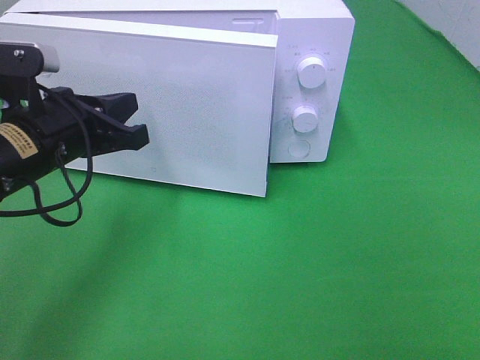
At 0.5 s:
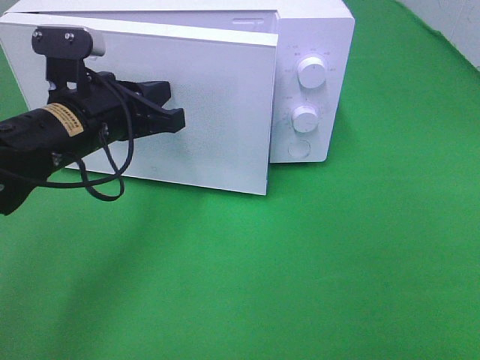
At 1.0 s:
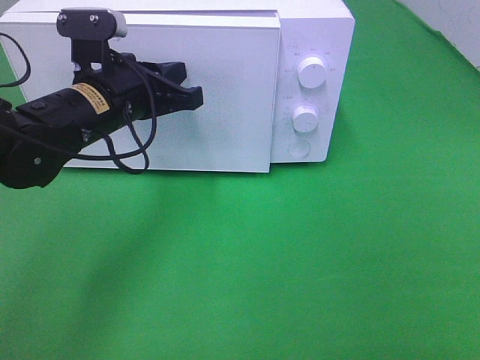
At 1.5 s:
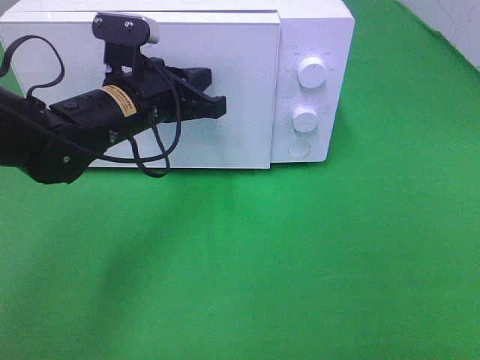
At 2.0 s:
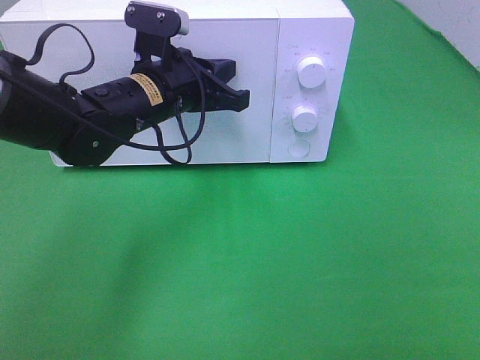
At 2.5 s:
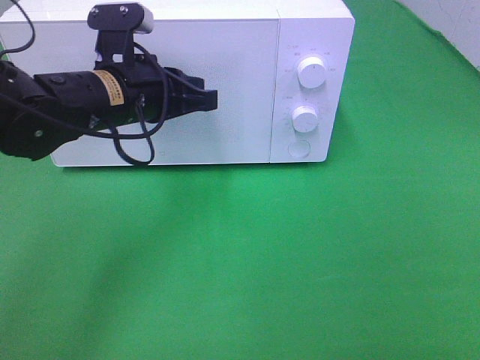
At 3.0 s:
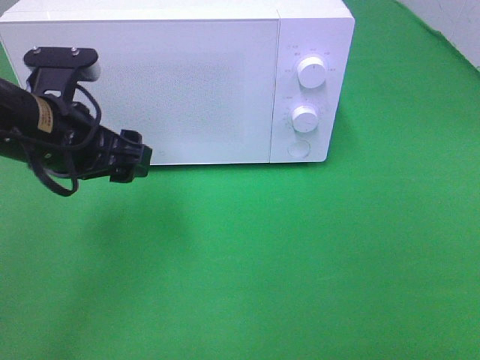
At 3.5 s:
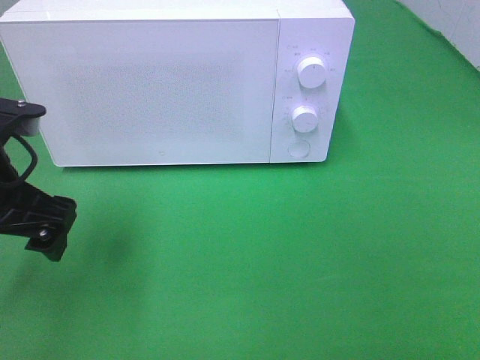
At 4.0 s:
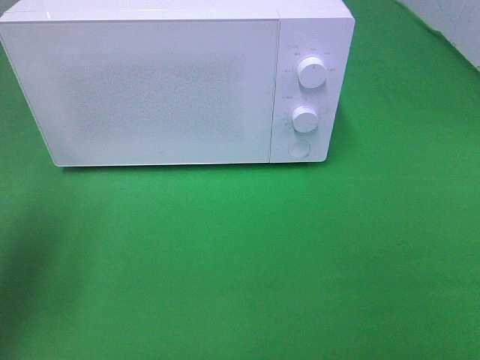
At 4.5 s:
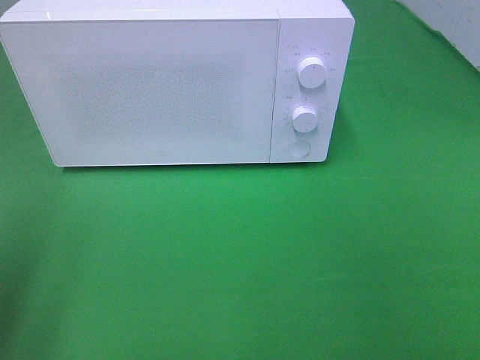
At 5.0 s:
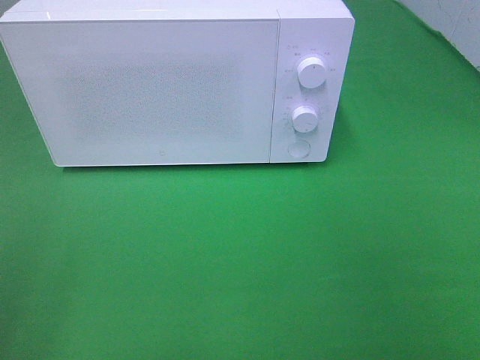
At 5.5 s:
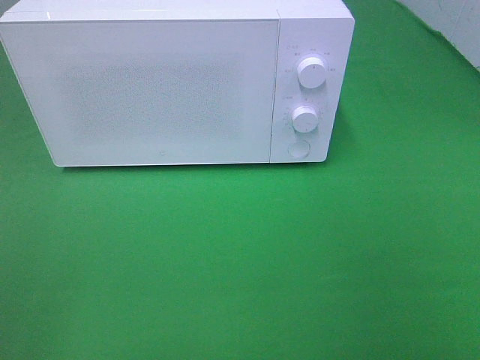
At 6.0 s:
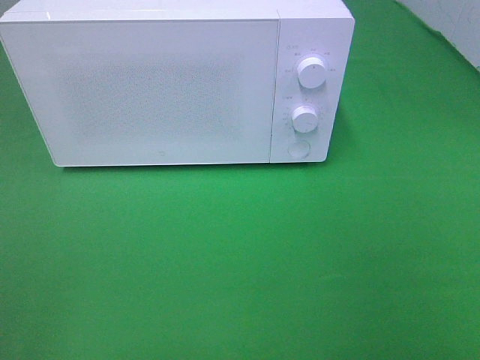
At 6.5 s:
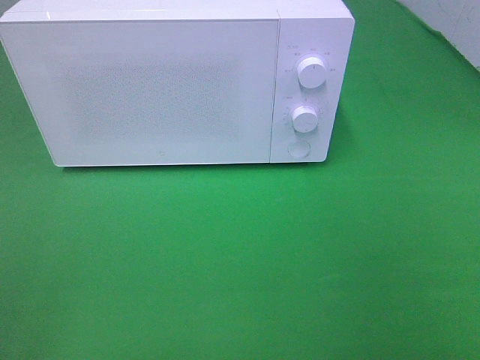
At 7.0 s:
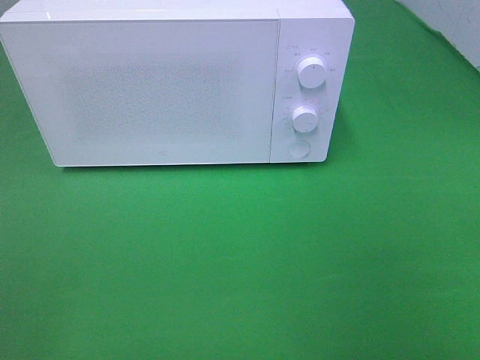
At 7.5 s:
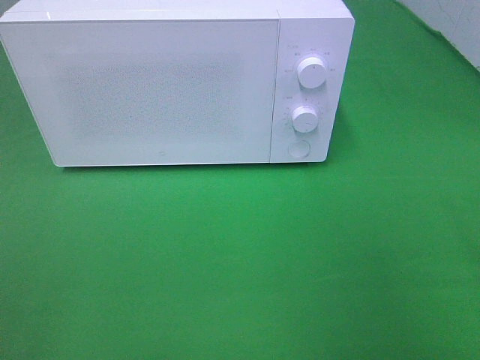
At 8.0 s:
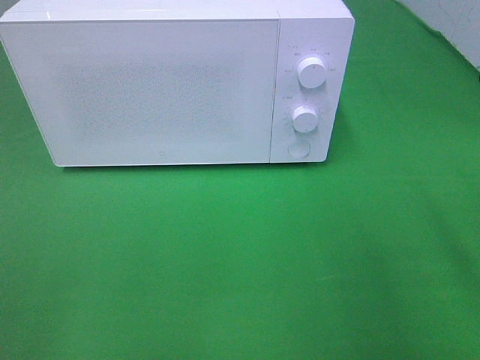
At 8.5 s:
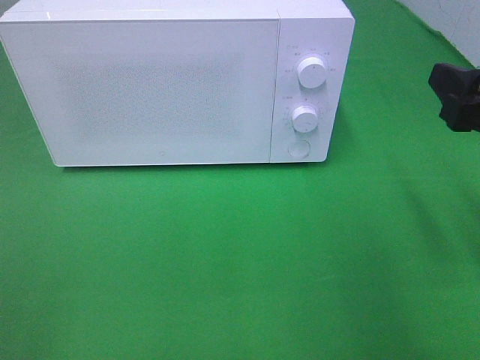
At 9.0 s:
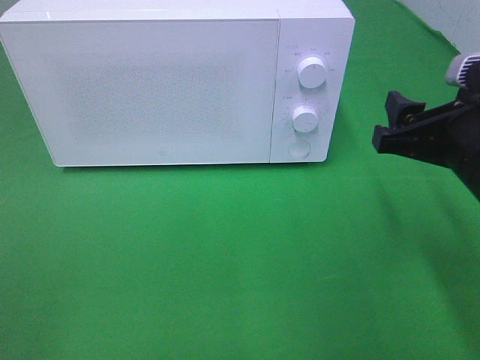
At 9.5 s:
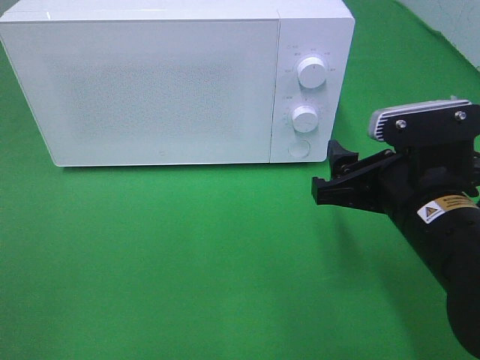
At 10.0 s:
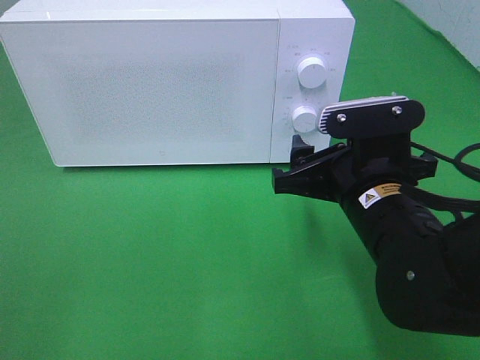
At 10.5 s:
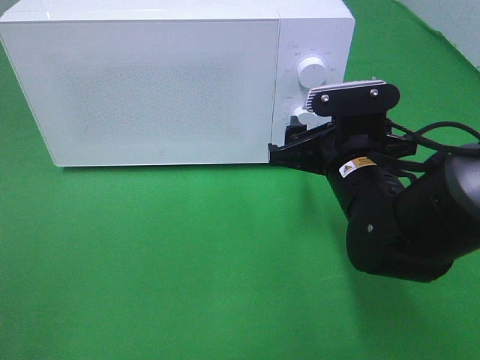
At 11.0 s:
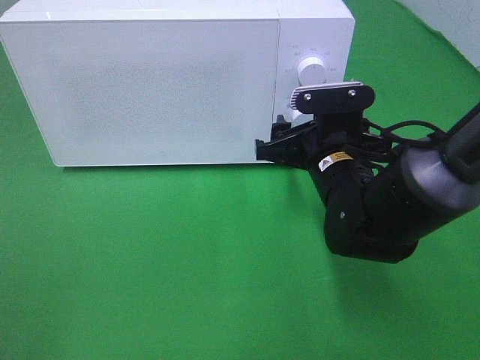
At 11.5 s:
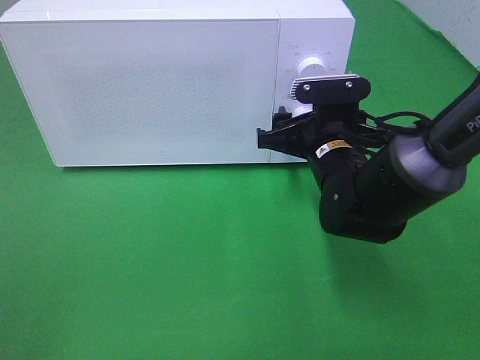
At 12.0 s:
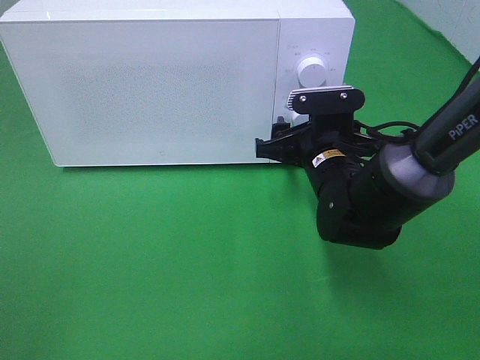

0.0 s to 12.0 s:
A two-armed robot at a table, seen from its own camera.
Task of the whole recording: Heat the burger.
Step, 0.0 to 2.5 s: Left hand: close the microwave door.
0.0 to 2.0 s: The left gripper moves to the right and forward, approximately 15 cm.
2.0 to 4.0 s: The left gripper shifts approximately 25 cm to the left and backward, and opens up.
4.0 to 6.0 s: The left gripper moves backward, about 20 cm.
8.0 to 10.0 s: The right gripper goes roughly 20 cm to the left, downward and forward.
10.0 to 12.0 s: The right gripper moves forward, approximately 10 cm.

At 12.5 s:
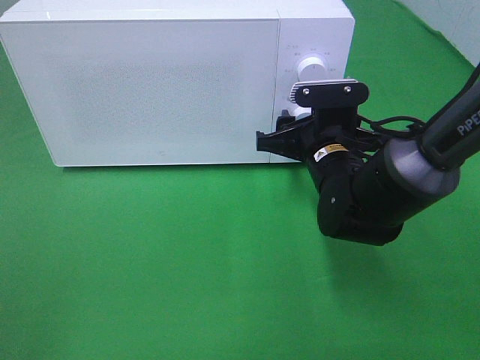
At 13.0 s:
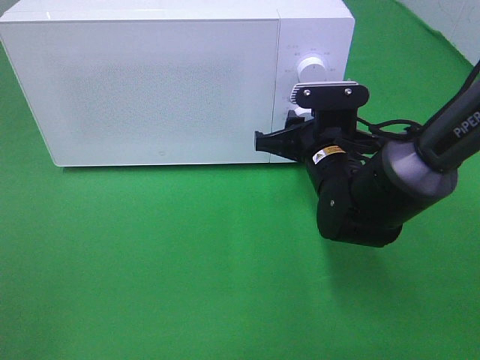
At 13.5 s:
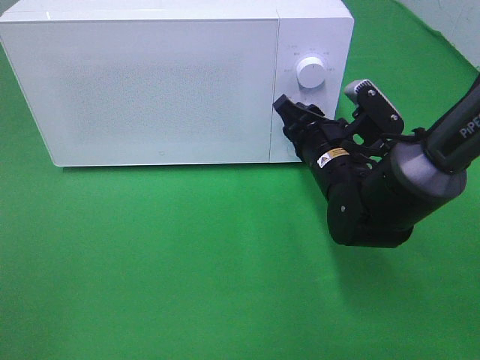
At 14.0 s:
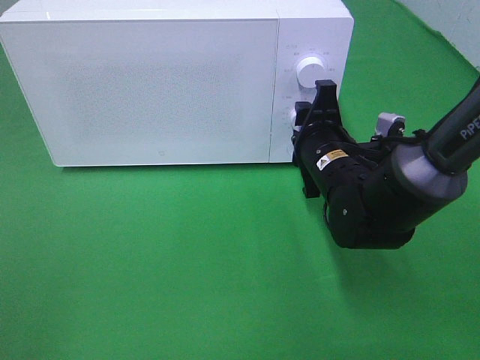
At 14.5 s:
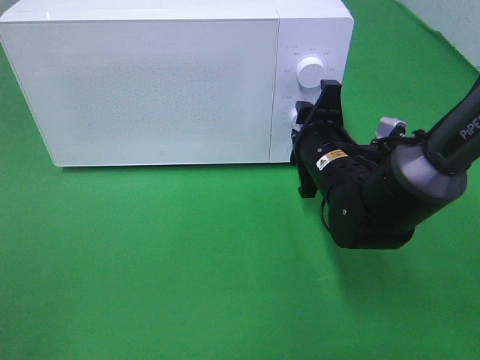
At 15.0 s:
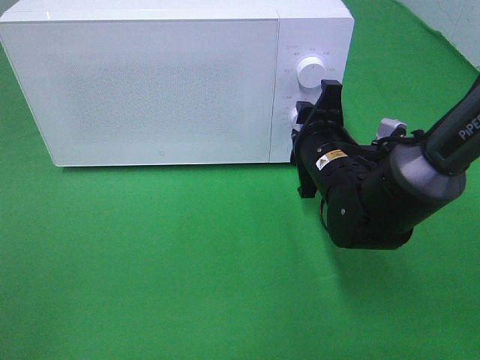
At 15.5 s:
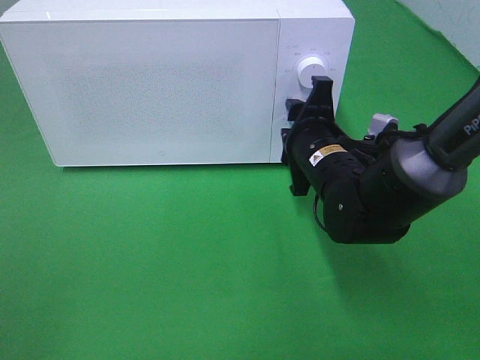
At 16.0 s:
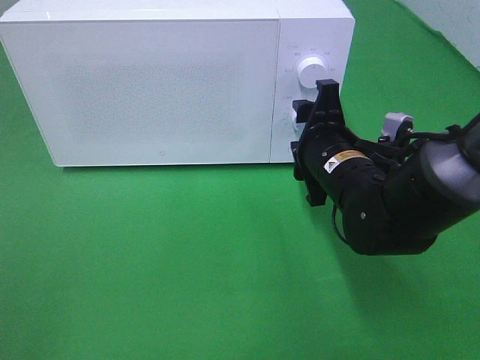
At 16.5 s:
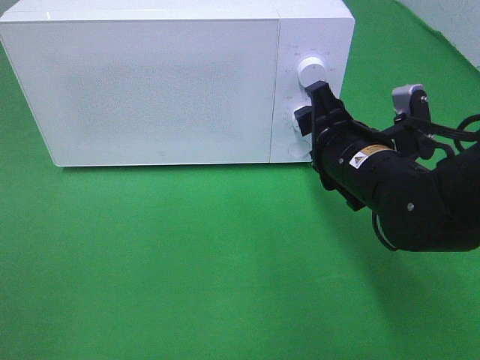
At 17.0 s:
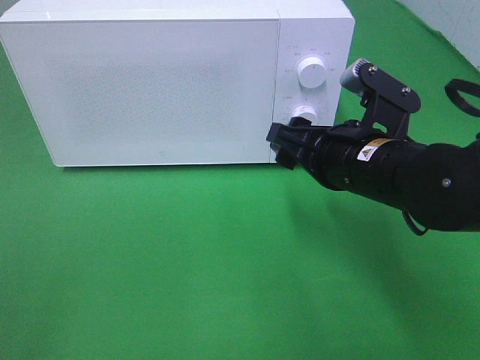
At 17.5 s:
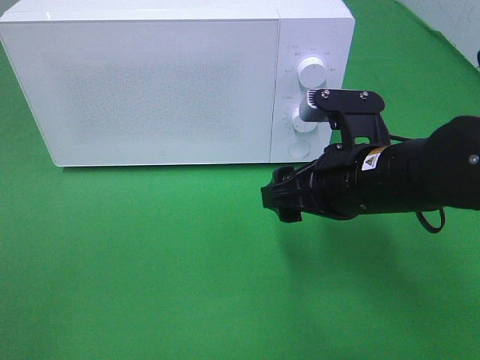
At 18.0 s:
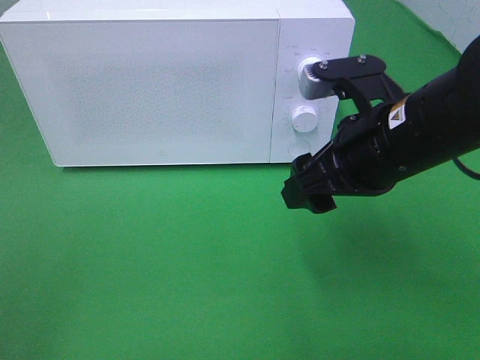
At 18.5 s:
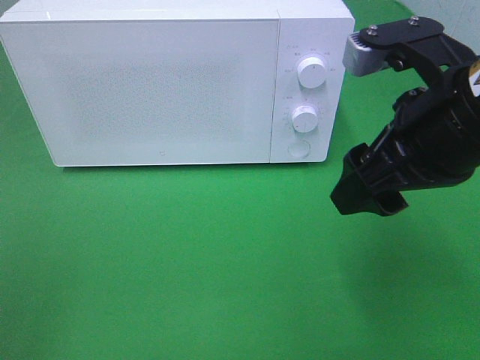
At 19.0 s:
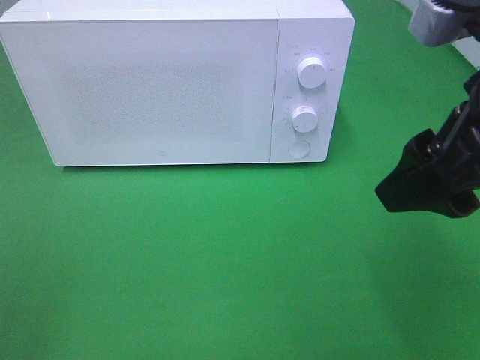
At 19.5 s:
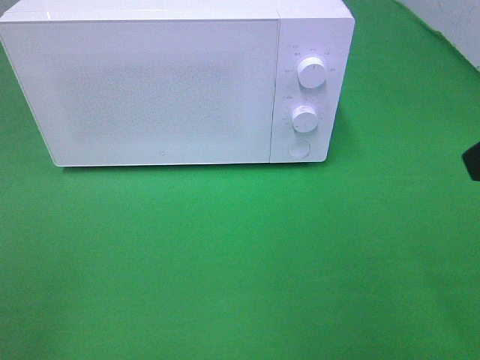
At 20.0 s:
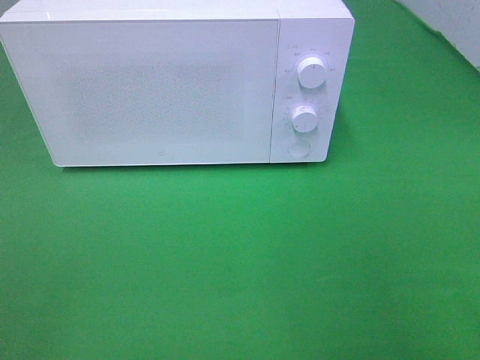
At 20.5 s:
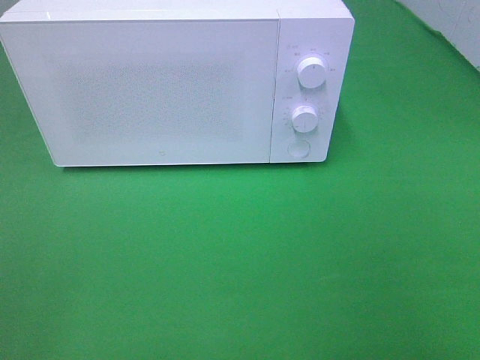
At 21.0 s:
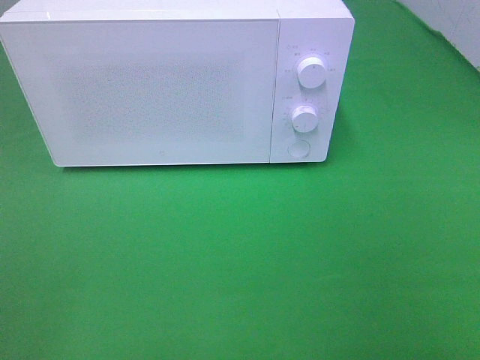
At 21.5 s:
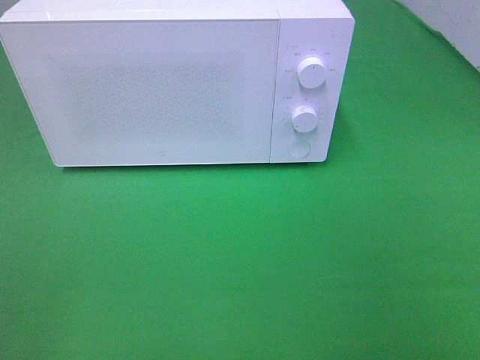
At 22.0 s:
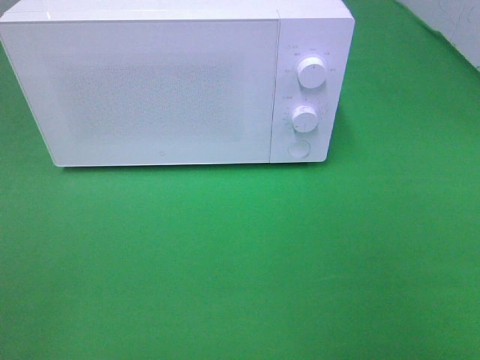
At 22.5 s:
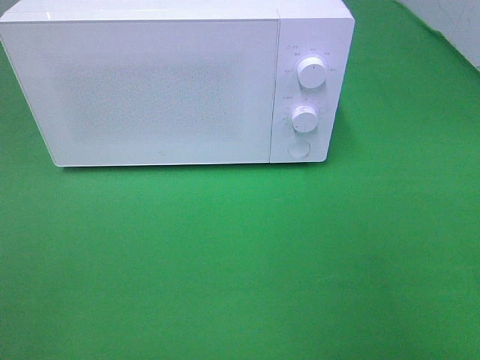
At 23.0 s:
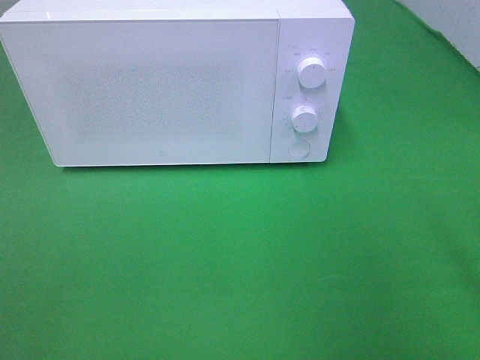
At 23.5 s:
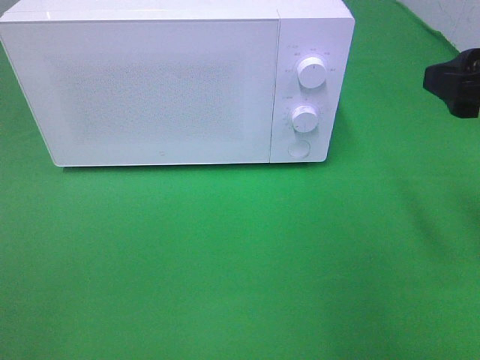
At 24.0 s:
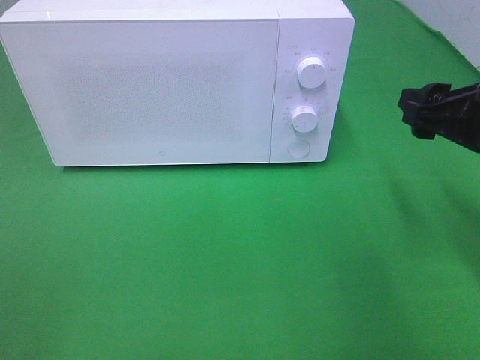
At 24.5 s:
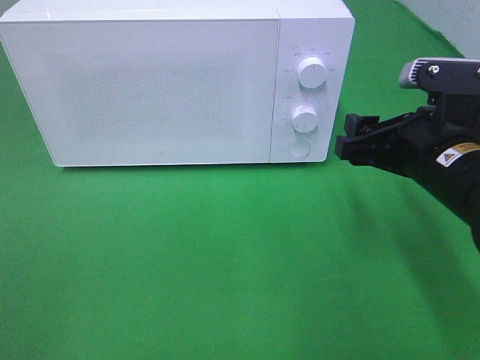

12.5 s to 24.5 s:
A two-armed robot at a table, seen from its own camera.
Task of the whole recording: Heat the burger.
Step, 12.5 to 16.0 s: Right hand: twist timer button.
14.5 to 16.5 s: The right gripper changes place by approximately 5 cm.
16.5 to 18.5 s: The right gripper heads upward and backward, covering about 15 cm.
18.5 to 20.5 s: The right gripper goes about 25 cm backward and to the right.
22.5 to 24.5 s: The right gripper heads forward, downward and to the left, covering some 25 cm.

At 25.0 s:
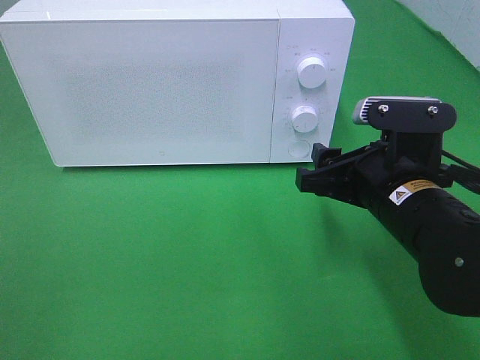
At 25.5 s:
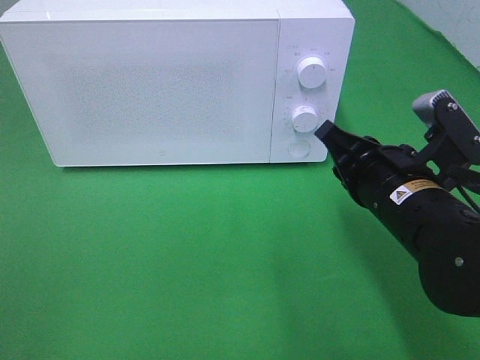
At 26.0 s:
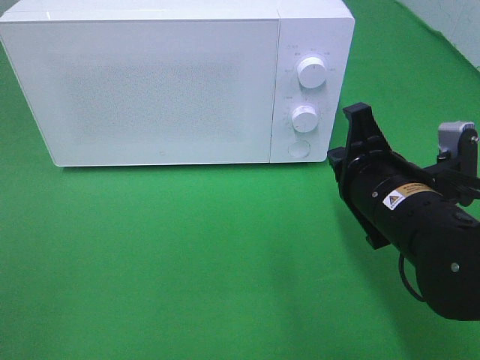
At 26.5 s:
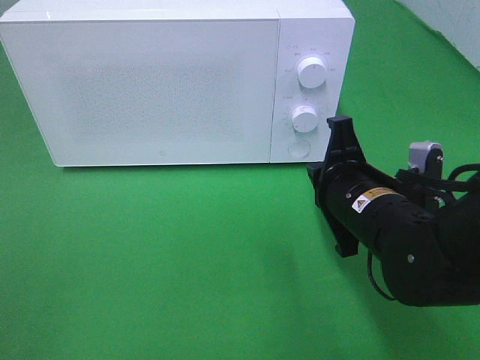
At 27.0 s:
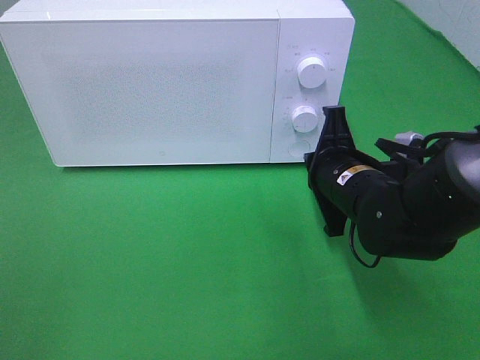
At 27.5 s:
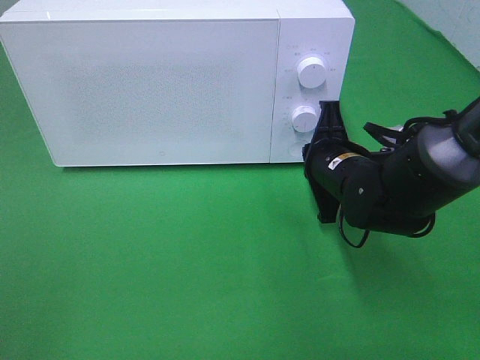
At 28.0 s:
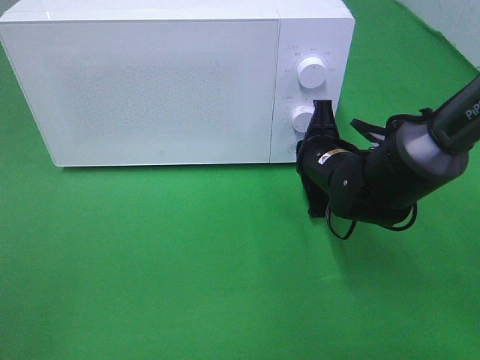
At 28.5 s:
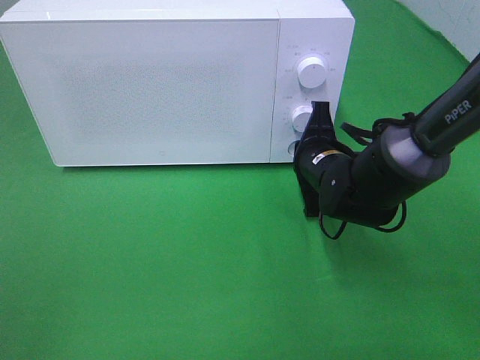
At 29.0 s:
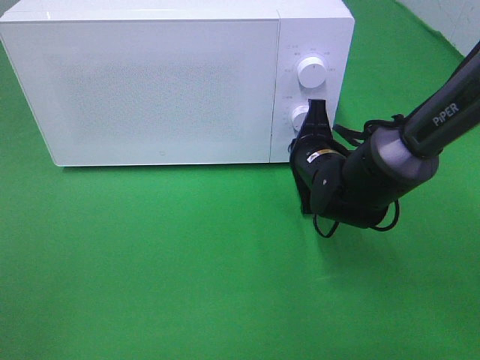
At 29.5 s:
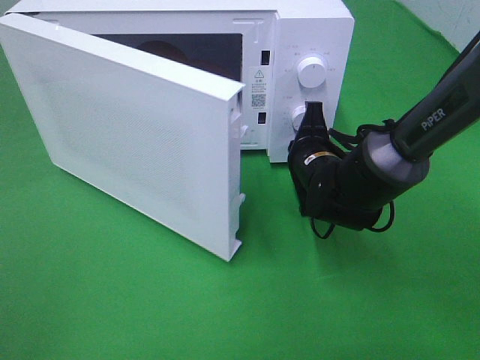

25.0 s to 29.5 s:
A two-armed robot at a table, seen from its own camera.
Task of the whole recording: Heat the burger.
25.0 to 27.0 s: The right gripper shifts approximately 5 cm forward, and closes up.
27.0 to 29.5 s: The right gripper goes approximately 5 cm forward.
